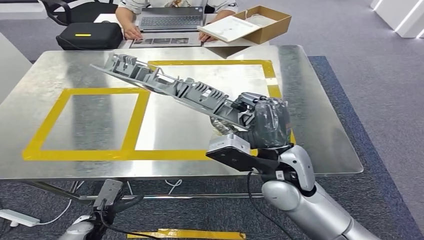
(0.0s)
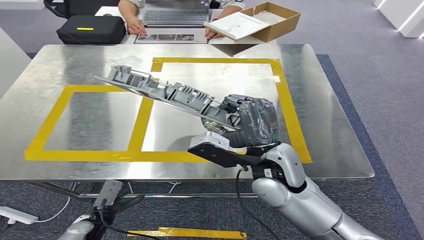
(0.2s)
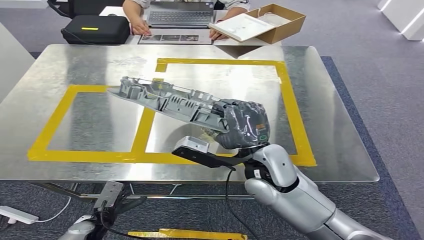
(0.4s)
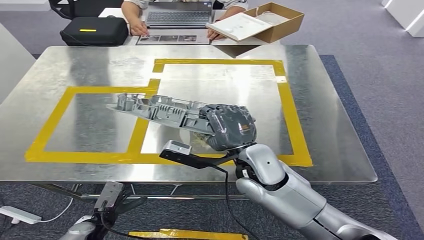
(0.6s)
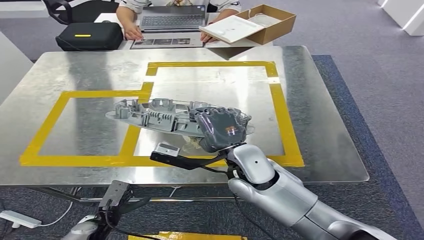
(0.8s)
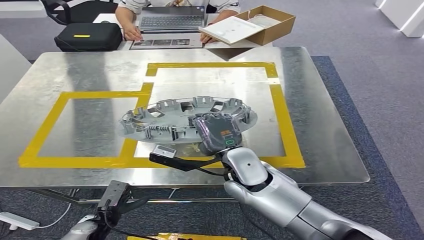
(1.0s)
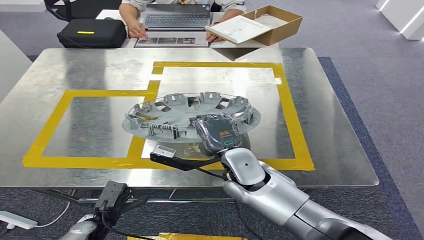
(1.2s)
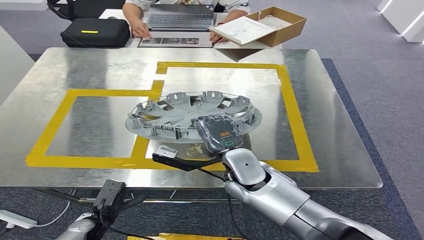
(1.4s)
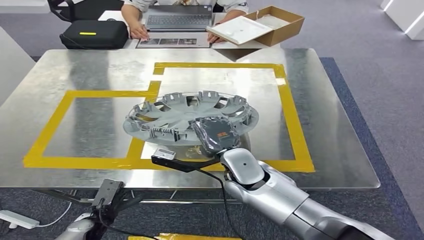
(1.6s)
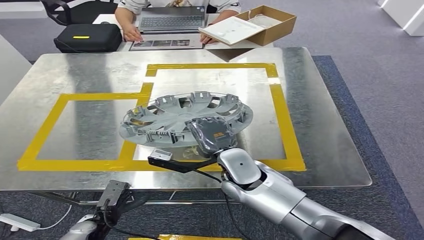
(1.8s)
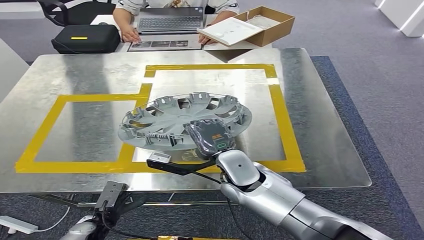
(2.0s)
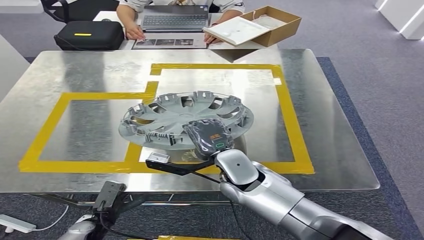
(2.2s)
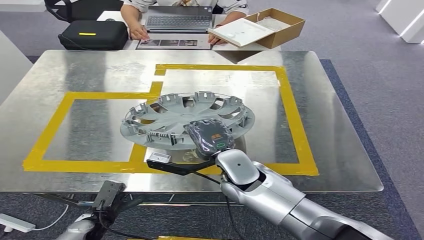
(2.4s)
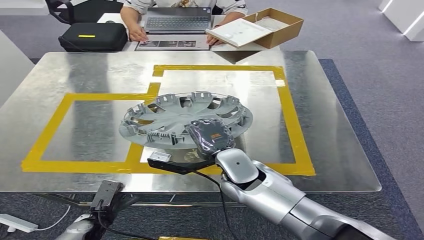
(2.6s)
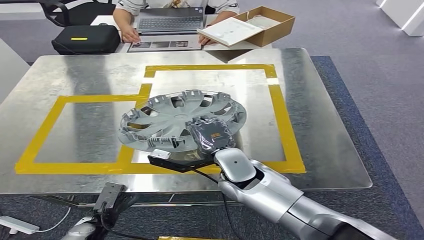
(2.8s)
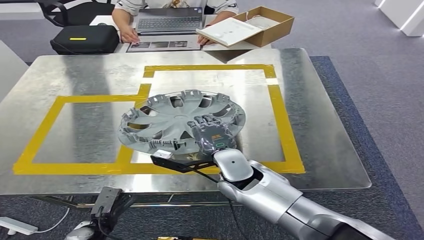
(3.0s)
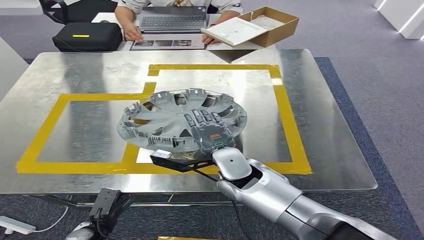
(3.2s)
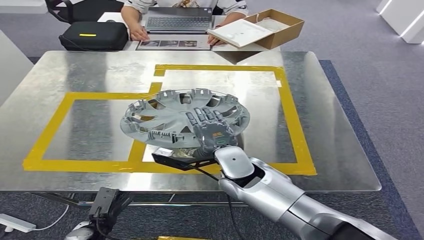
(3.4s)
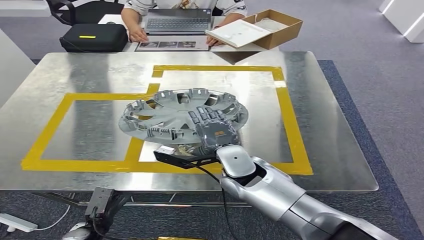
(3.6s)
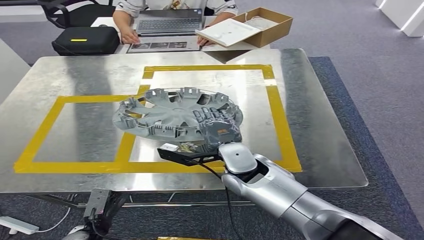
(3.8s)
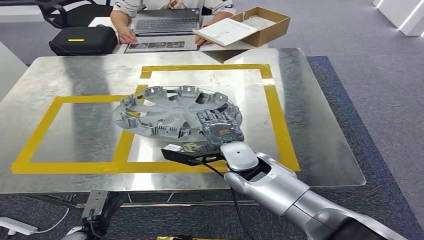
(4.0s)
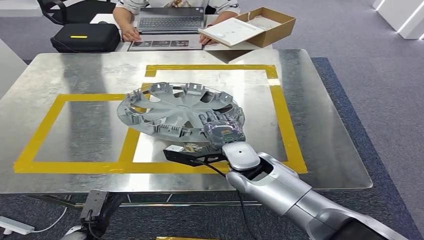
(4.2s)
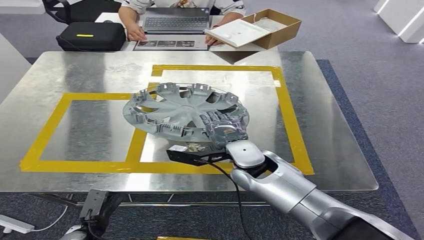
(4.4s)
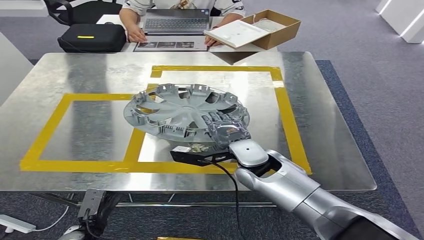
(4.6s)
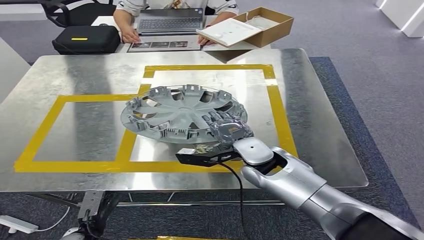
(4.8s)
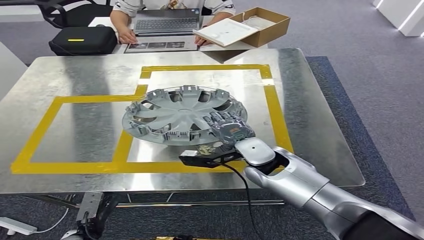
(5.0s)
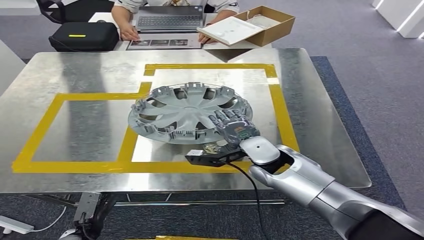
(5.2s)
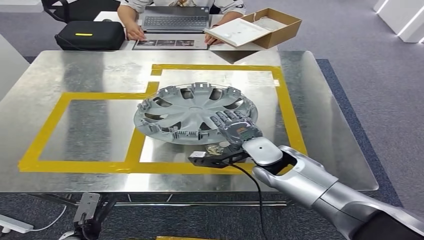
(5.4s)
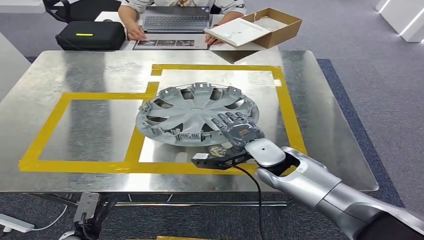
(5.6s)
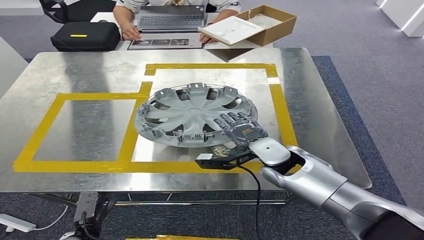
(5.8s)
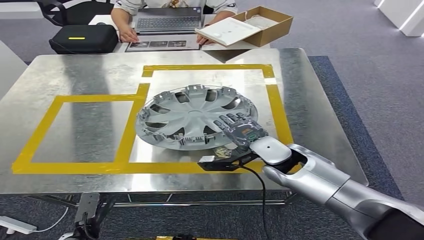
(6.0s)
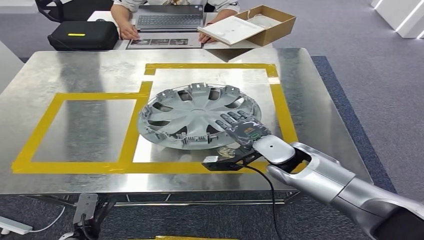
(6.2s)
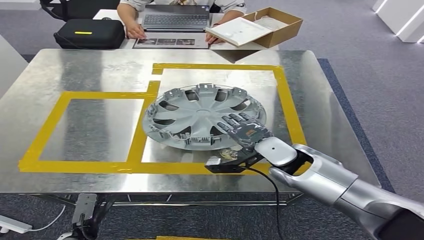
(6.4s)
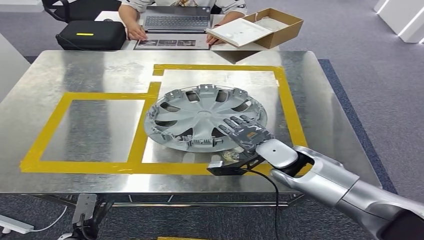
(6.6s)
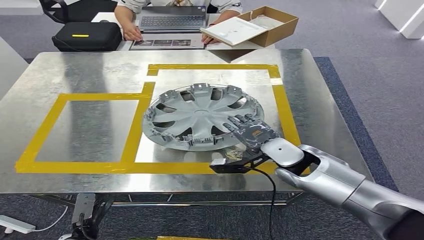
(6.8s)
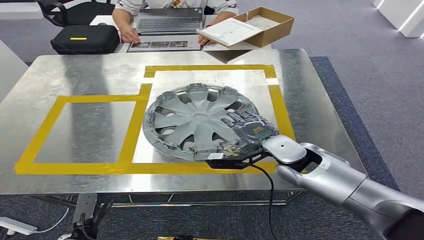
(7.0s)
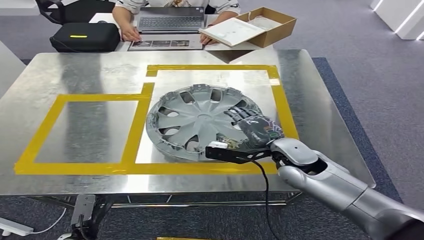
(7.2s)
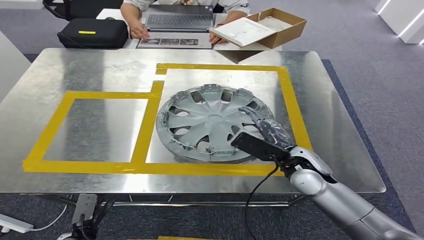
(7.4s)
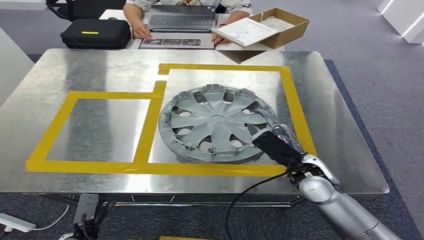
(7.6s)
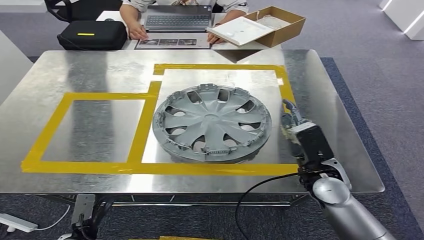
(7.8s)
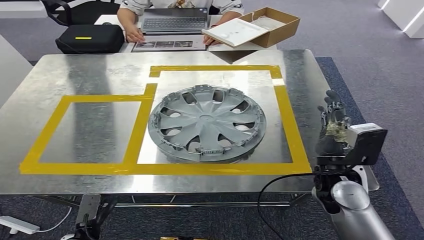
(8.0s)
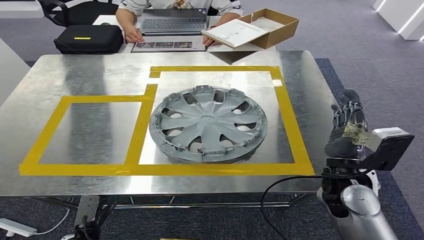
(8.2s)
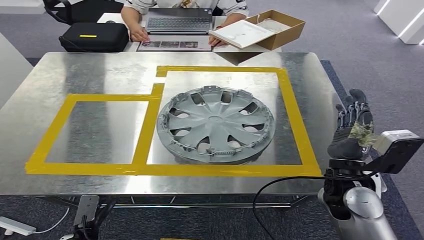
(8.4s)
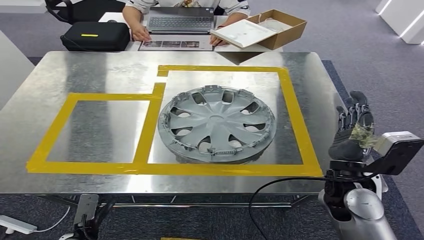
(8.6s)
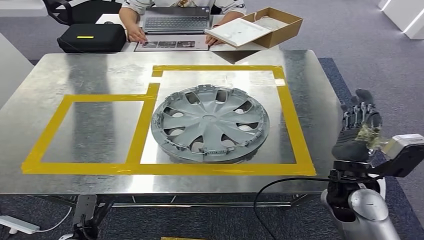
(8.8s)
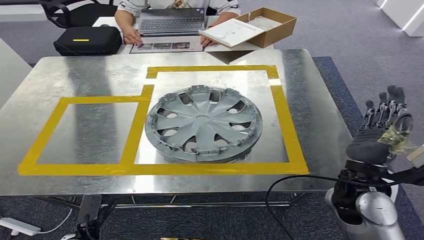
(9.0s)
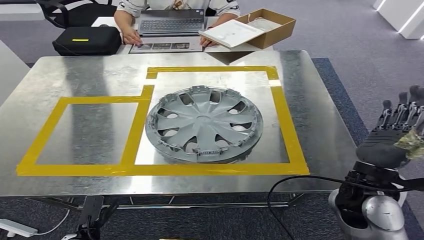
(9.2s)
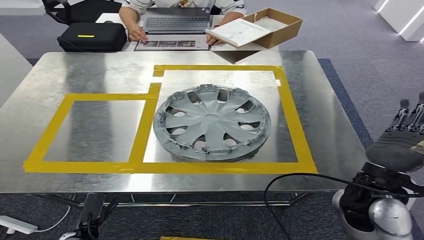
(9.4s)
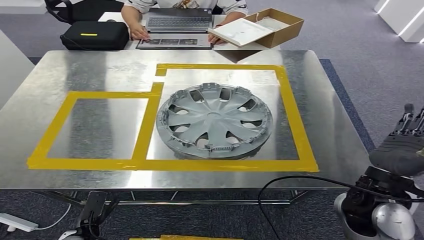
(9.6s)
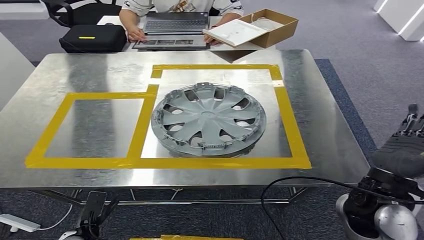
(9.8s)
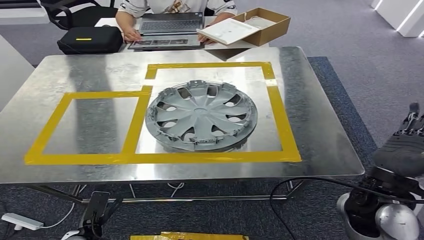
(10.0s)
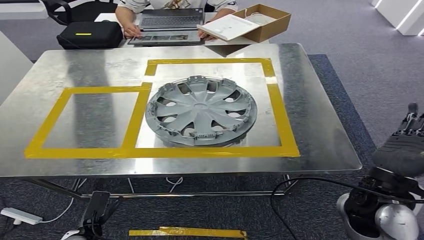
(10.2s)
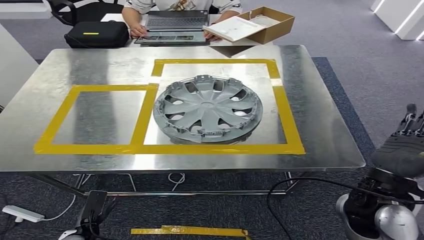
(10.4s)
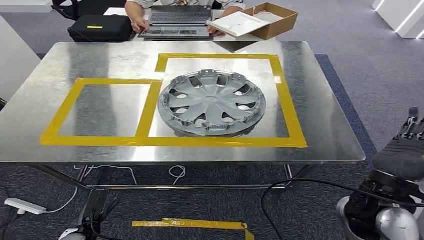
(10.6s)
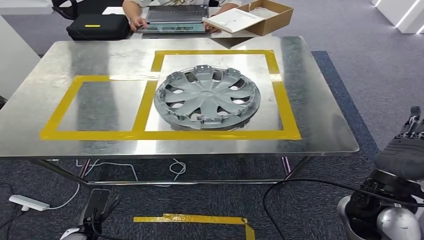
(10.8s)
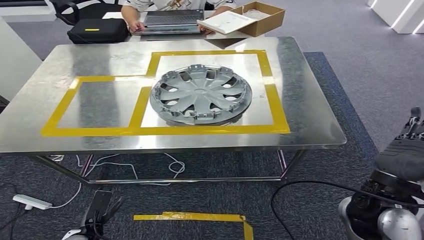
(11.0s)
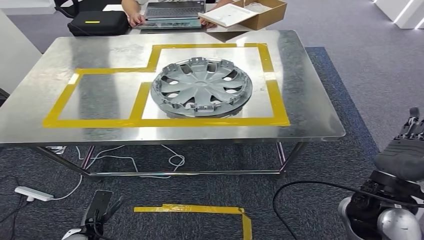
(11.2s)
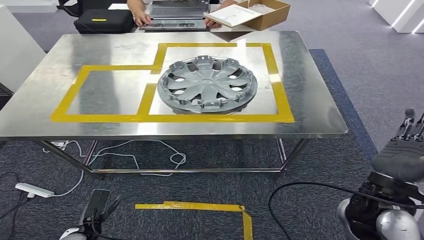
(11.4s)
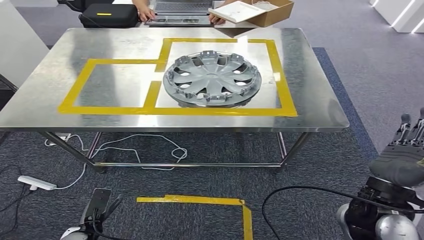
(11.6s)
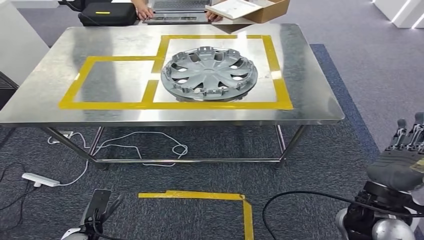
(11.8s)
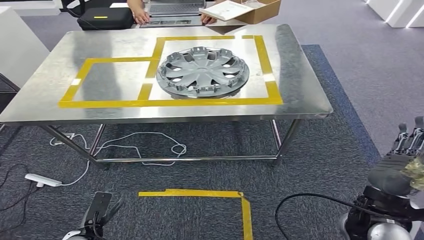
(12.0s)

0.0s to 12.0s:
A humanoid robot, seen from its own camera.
Step, 0.0s to 8.2s: Insert the small parts into the corresponding holes on the workbench.

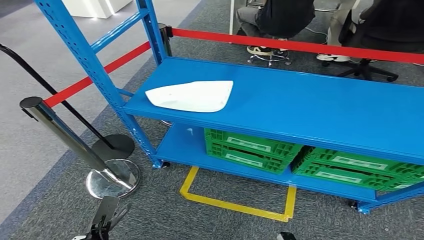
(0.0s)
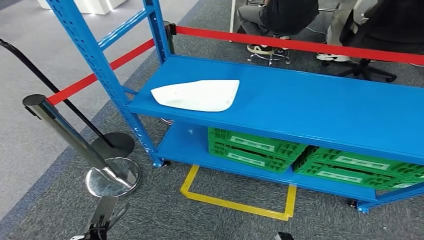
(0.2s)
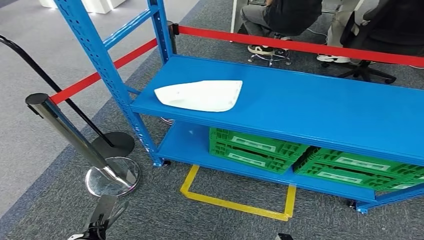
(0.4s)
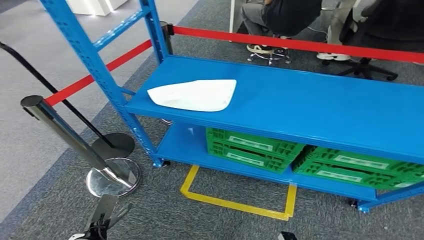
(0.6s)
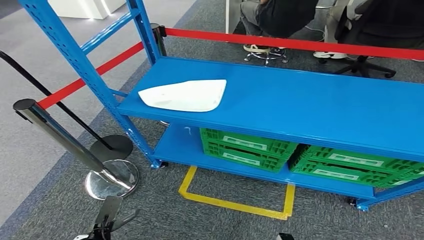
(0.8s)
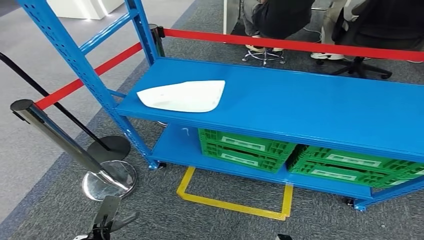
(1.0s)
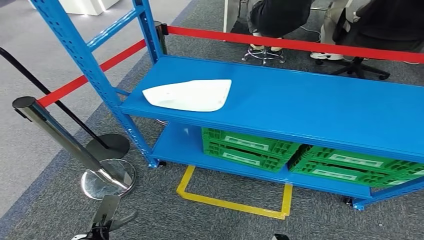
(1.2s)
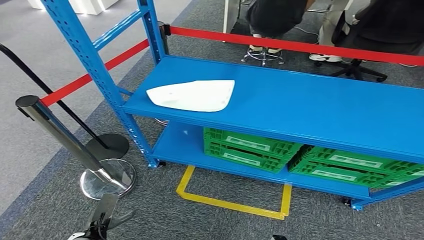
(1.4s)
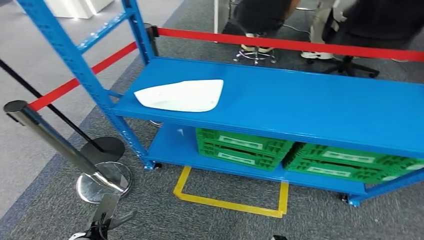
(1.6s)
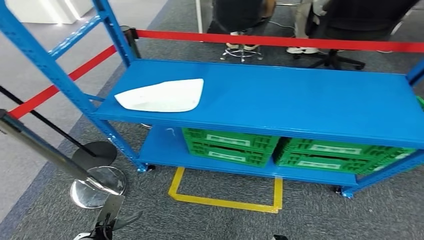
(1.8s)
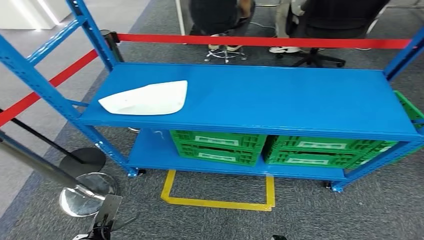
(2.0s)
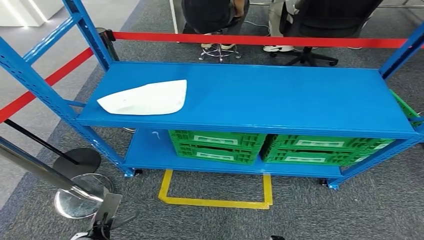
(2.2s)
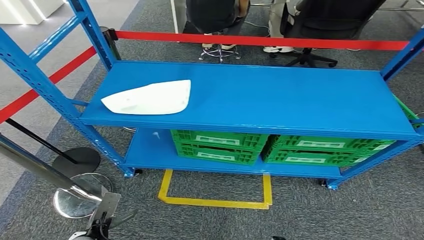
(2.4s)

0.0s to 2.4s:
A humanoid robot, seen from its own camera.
Step, 0.0s to 2.4s: Move to the initial position of the workbench.
0.0s to 1.2s: The hands stay close to where they were, moving slightly.
